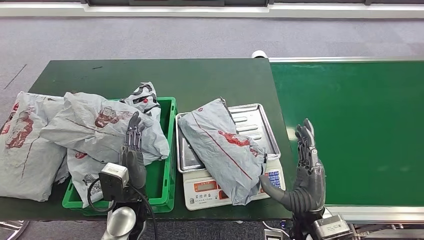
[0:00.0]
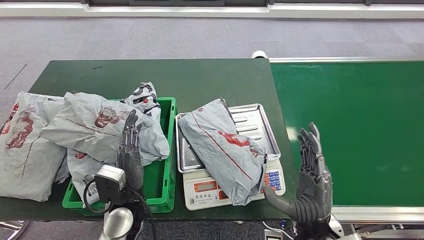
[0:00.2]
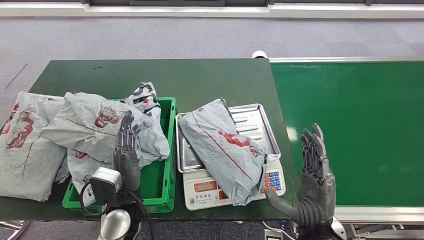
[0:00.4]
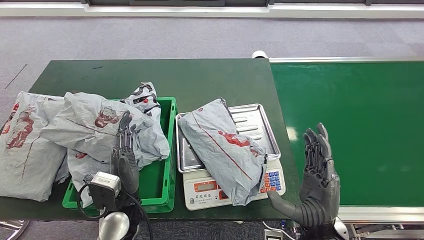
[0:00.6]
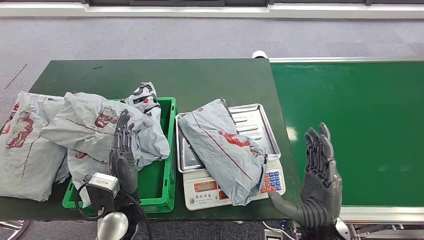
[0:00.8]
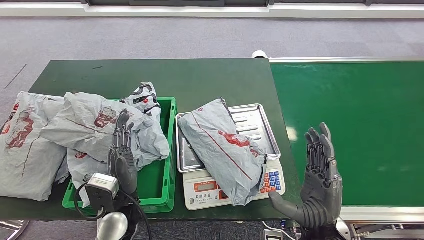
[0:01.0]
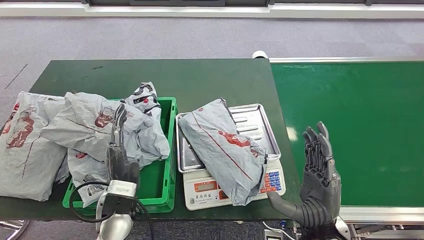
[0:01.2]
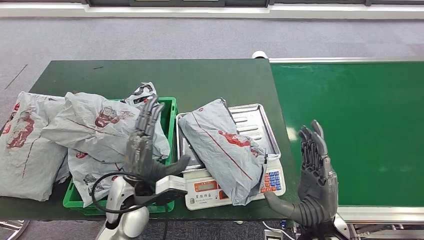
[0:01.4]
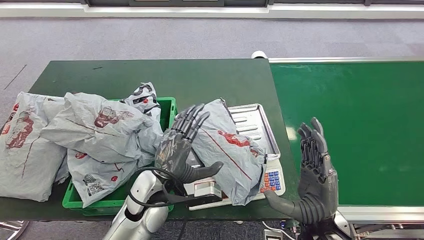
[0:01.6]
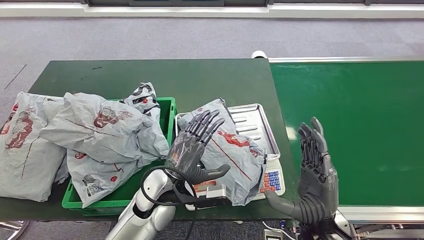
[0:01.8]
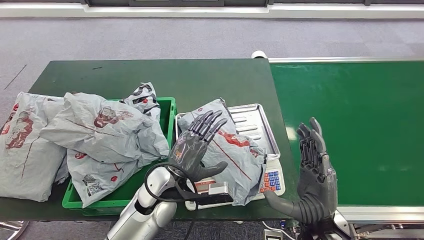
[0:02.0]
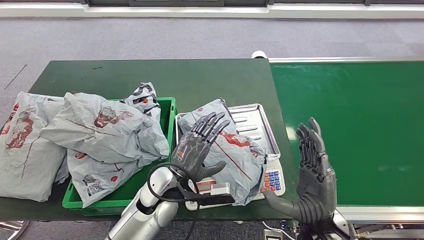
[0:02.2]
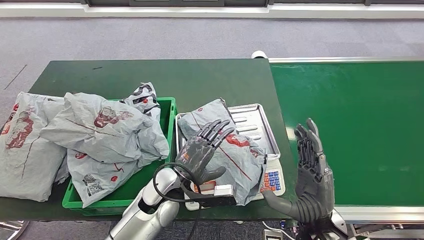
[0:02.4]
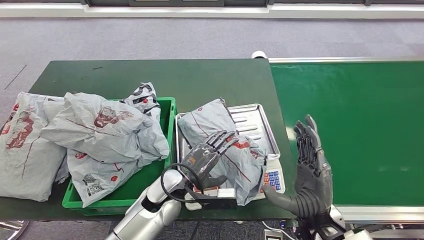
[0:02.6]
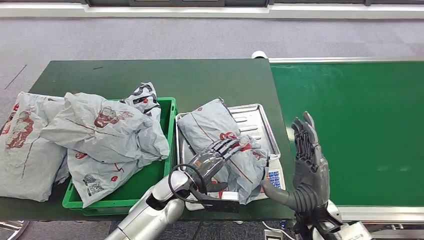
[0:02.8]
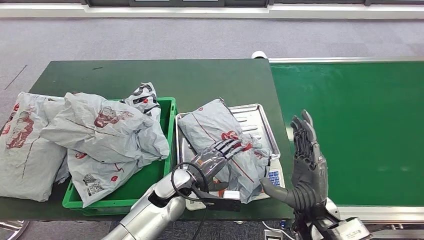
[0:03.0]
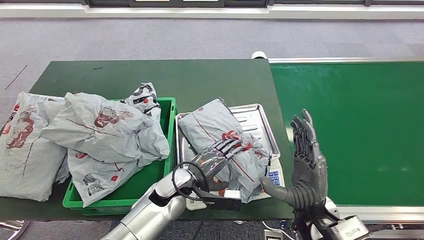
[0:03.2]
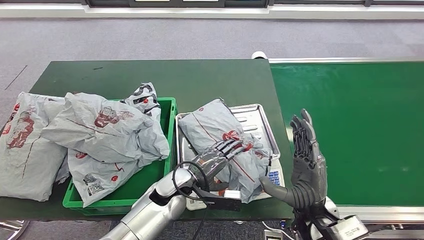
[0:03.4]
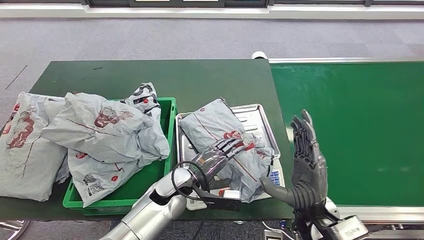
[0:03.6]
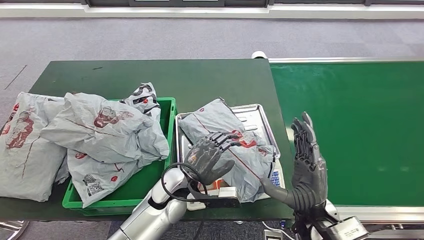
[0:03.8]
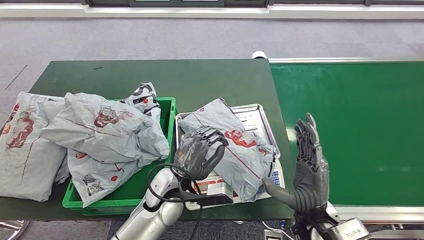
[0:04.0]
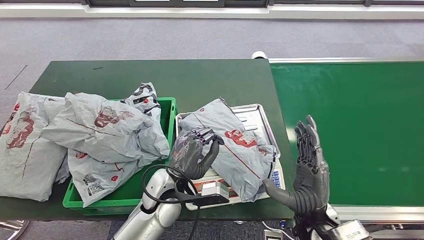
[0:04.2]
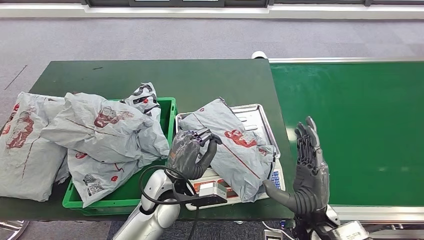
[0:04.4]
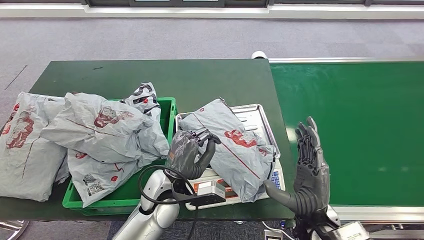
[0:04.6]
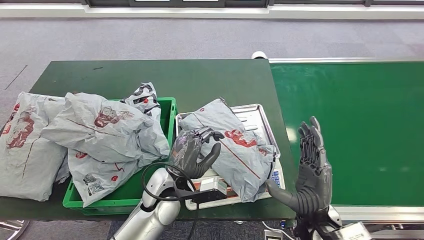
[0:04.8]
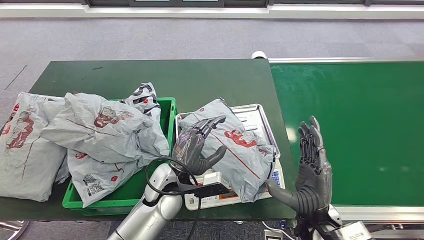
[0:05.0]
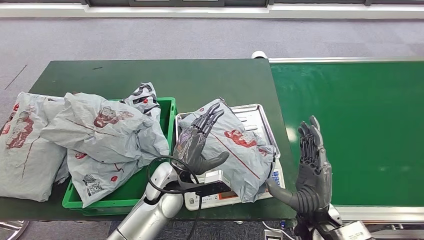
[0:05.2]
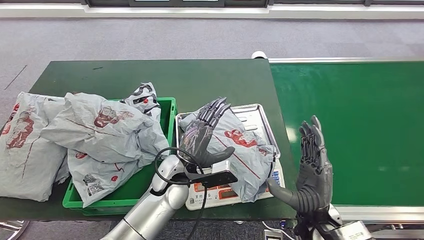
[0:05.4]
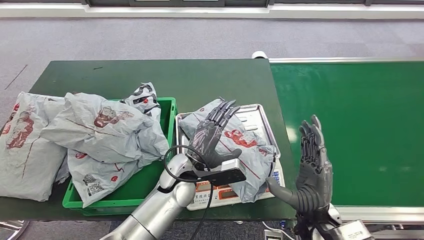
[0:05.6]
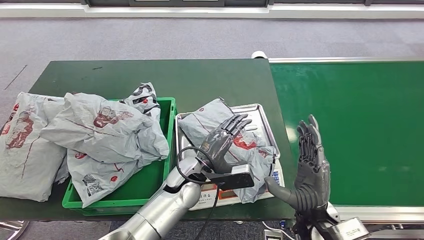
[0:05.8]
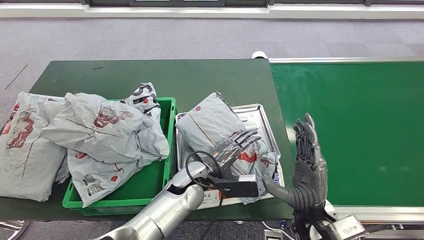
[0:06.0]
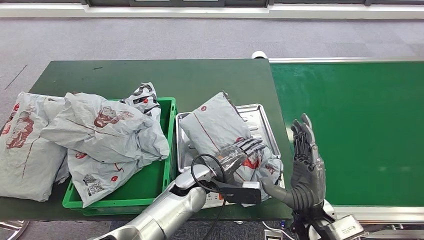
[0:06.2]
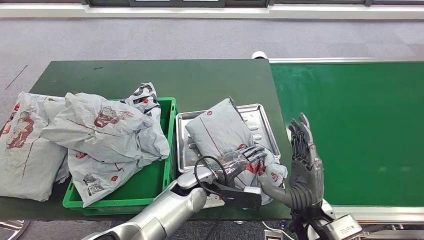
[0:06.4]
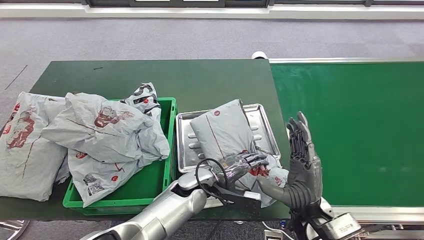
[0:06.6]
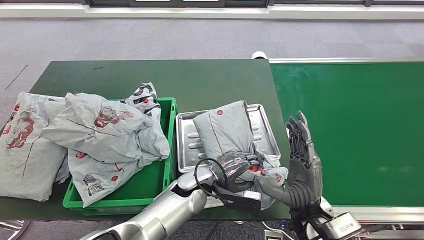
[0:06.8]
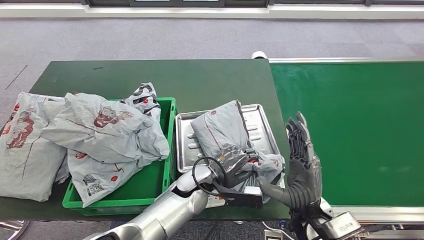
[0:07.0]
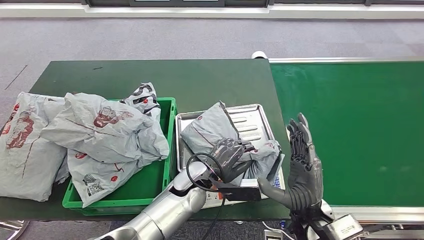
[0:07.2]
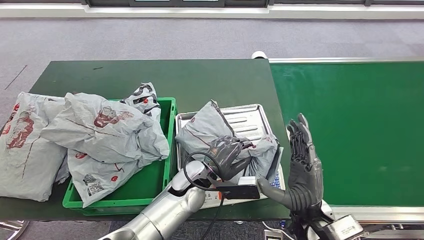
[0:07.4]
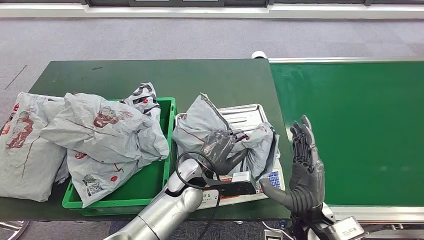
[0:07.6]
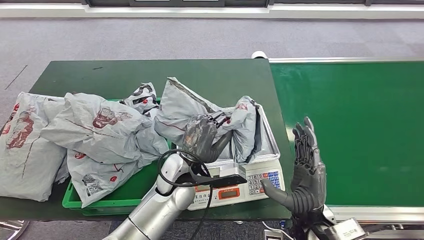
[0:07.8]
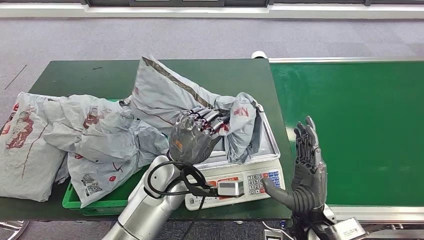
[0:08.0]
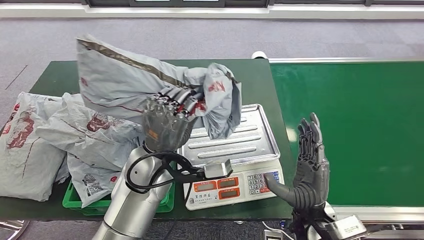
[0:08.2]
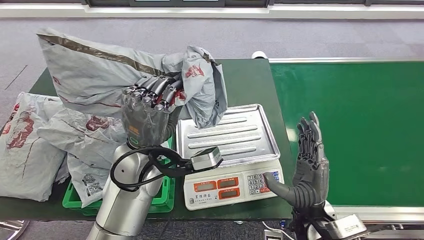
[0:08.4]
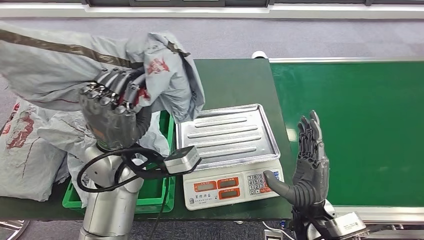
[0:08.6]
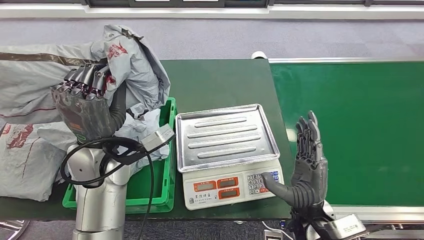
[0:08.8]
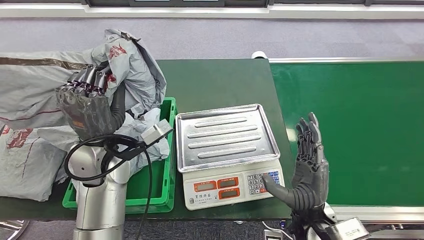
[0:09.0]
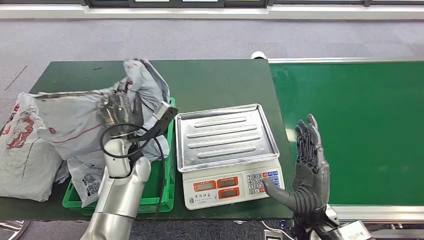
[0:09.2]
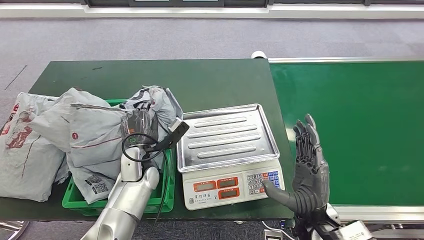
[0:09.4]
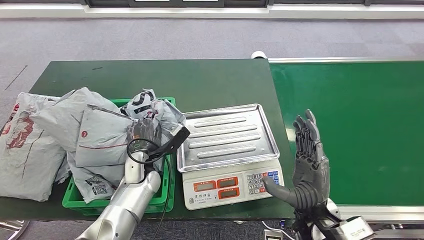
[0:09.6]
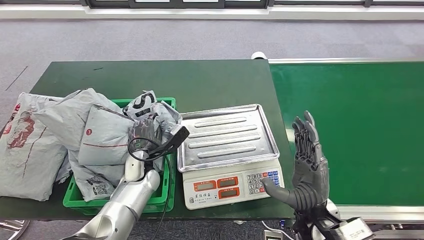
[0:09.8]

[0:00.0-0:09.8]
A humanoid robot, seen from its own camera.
Step, 0:00.0 to 0:08.8: Pick up the parcel from the inbound machine.
0:00.0 to 0:01.4: The left hand changes place by approximately 5 cm.
0:01.4 to 0:02.8: The left hand moves to the right and downward, roughly 10 cm.
0:04.2 to 0:05.6: The hands stay close to where they were, moving slightly.
0:05.6 to 0:07.0: The left hand changes place by roughly 5 cm.

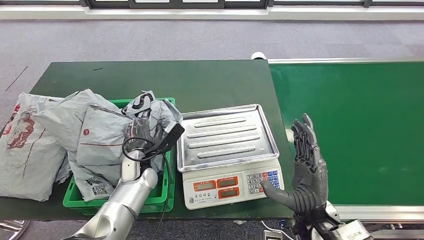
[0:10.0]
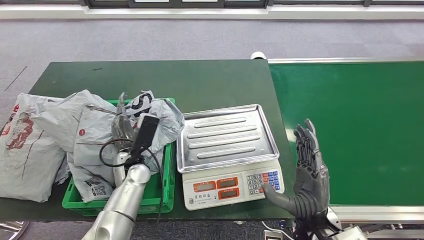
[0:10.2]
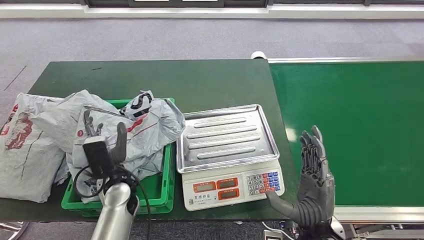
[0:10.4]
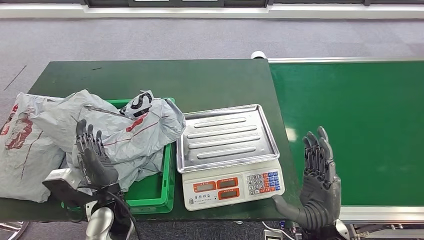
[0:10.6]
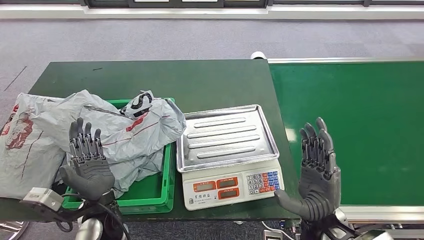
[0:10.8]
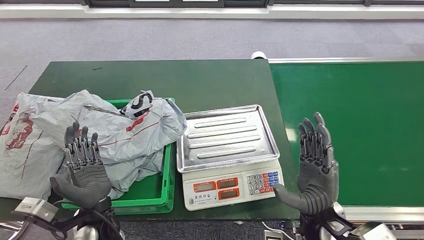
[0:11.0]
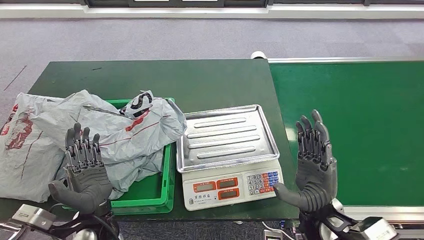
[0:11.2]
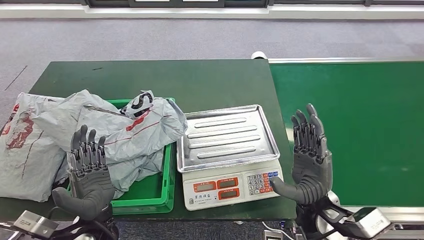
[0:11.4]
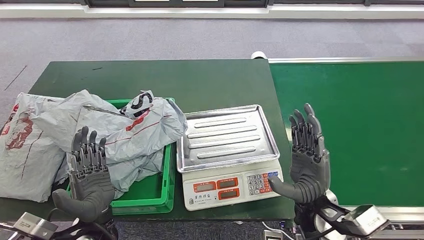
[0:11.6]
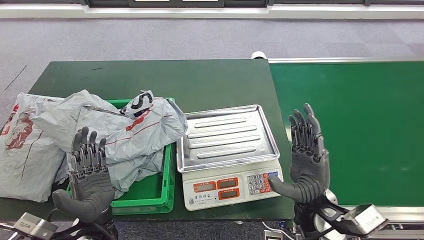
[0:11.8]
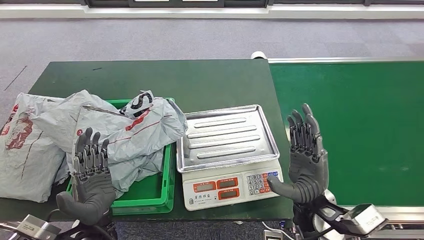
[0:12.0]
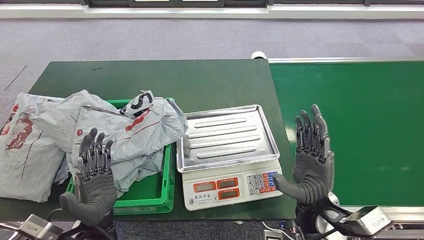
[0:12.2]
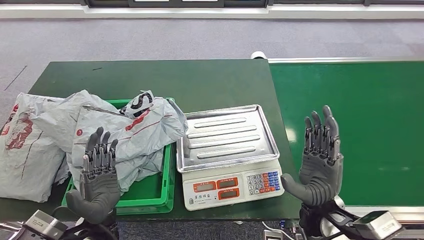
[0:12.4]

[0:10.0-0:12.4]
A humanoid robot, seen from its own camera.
Step, 0:10.0 to 0:12.4: Place the parcel into the delivery box.
0:11.2 to 0:12.4: The hands make only small movements.
